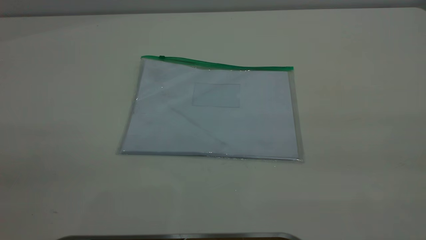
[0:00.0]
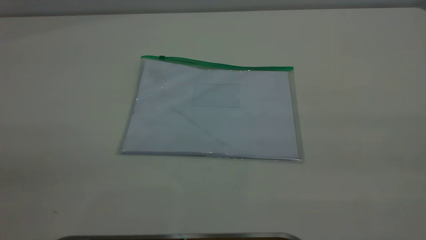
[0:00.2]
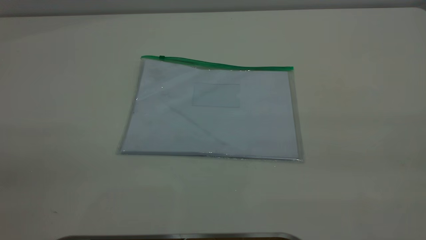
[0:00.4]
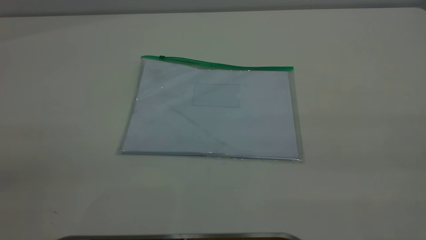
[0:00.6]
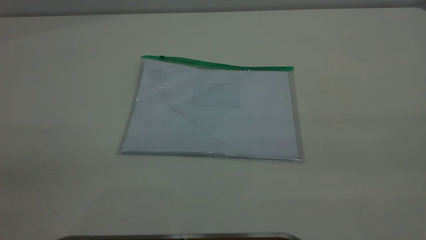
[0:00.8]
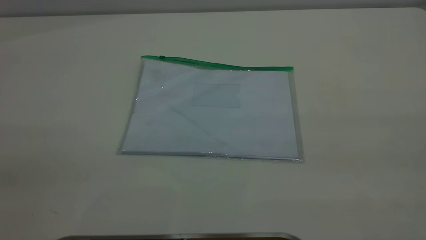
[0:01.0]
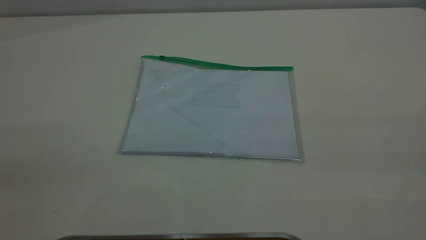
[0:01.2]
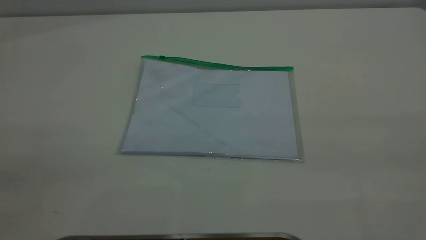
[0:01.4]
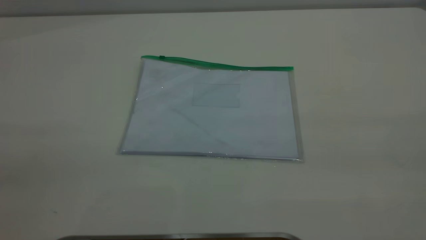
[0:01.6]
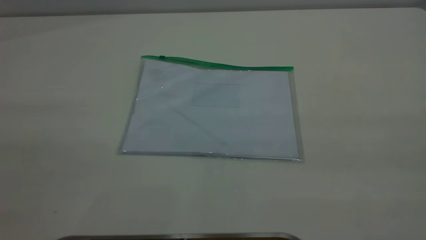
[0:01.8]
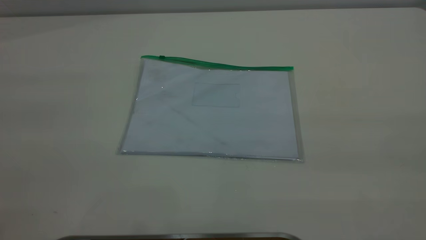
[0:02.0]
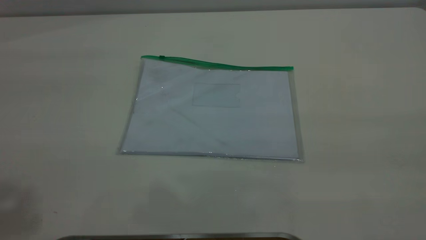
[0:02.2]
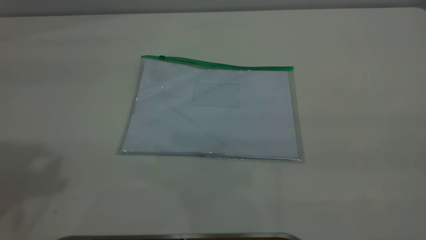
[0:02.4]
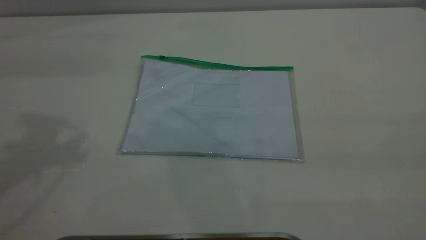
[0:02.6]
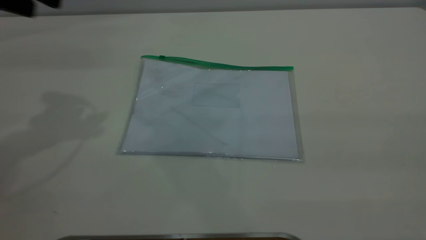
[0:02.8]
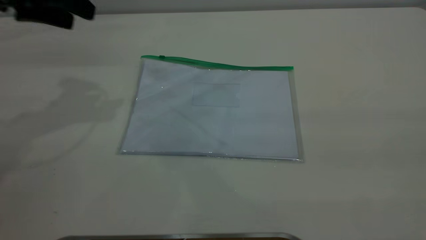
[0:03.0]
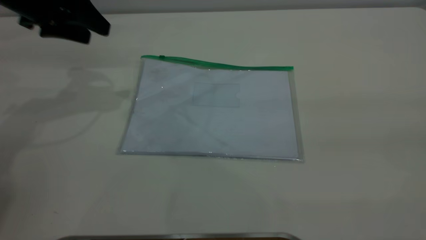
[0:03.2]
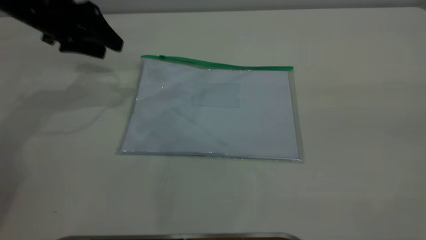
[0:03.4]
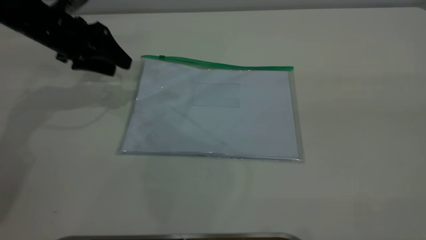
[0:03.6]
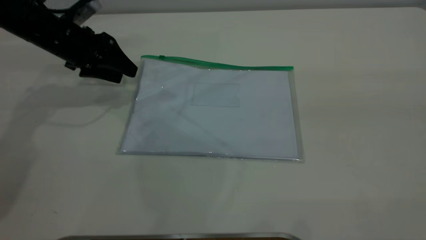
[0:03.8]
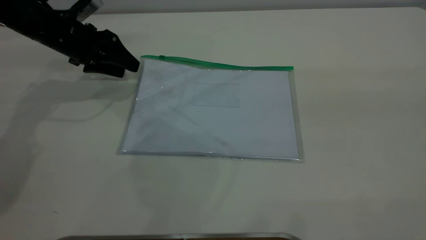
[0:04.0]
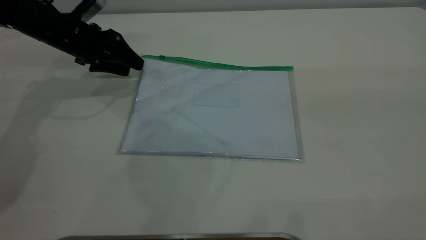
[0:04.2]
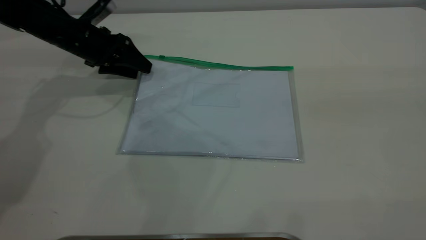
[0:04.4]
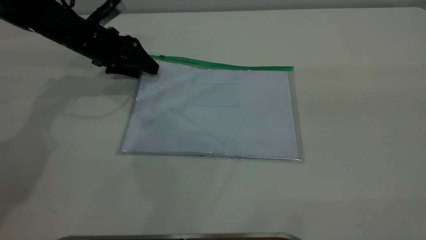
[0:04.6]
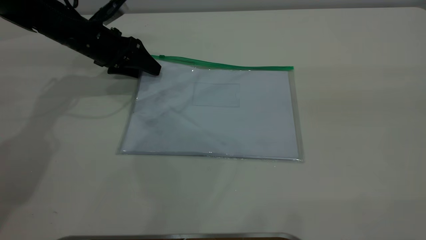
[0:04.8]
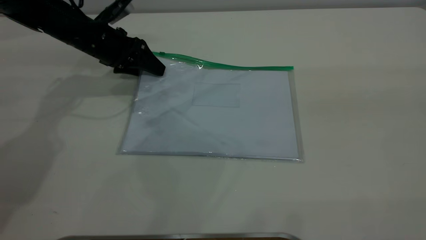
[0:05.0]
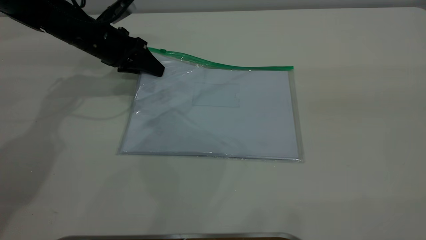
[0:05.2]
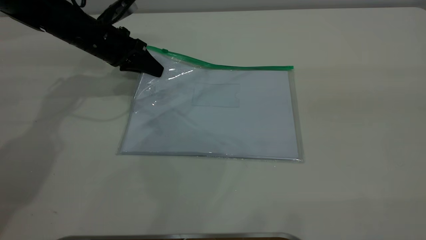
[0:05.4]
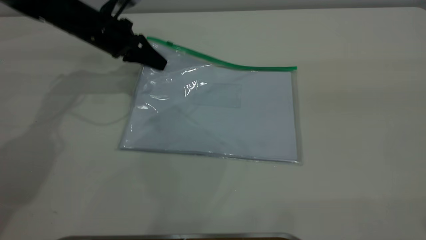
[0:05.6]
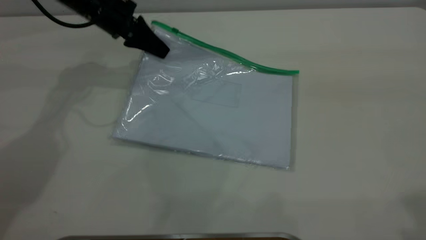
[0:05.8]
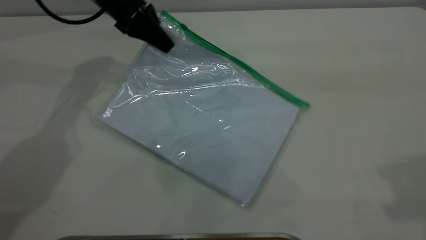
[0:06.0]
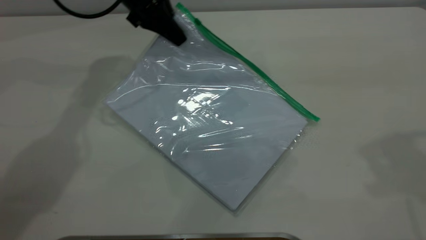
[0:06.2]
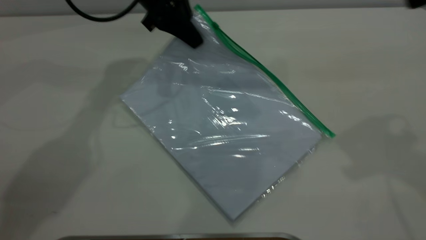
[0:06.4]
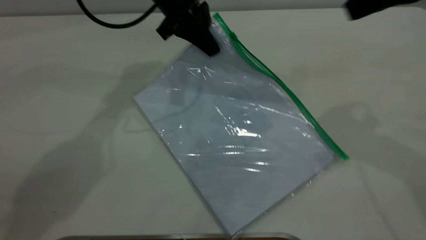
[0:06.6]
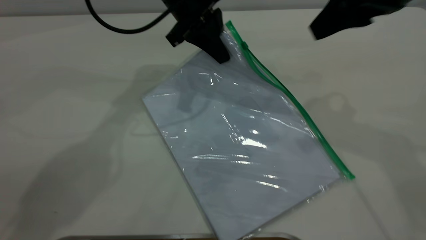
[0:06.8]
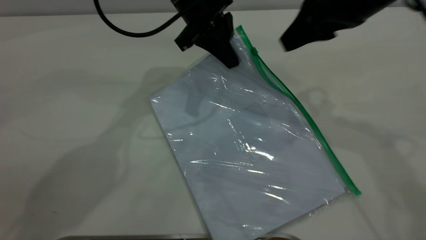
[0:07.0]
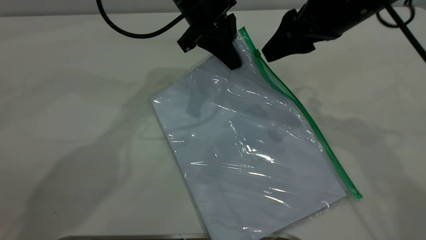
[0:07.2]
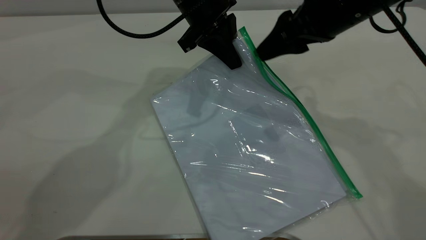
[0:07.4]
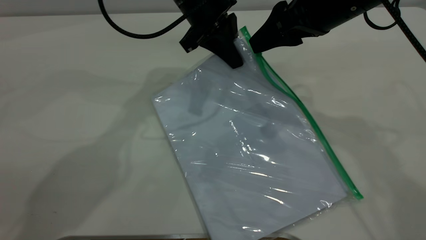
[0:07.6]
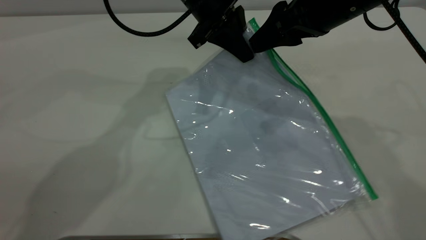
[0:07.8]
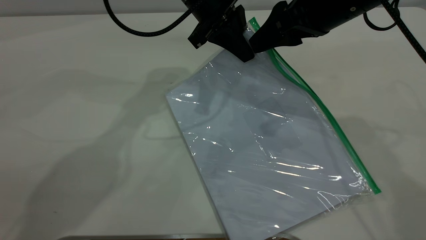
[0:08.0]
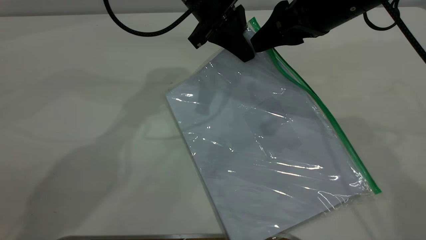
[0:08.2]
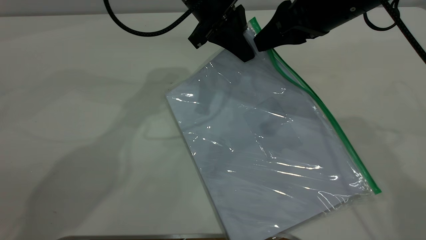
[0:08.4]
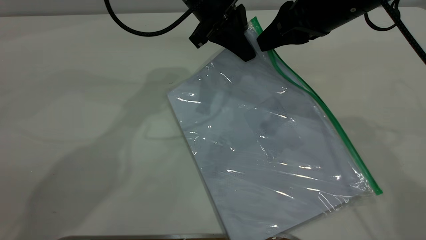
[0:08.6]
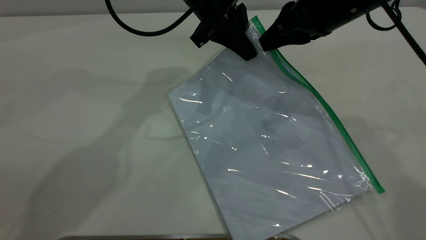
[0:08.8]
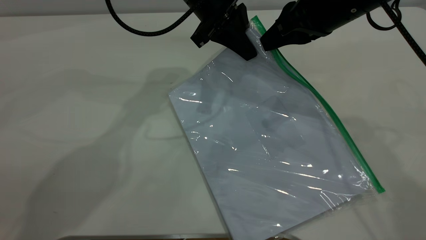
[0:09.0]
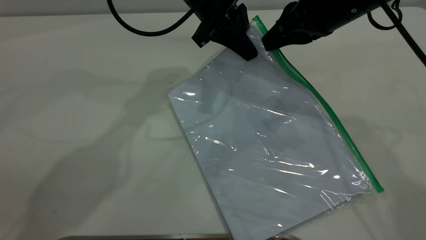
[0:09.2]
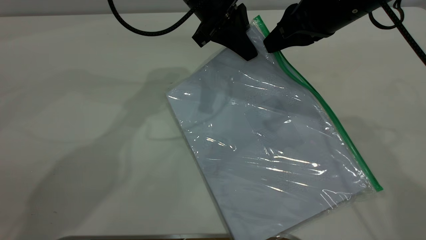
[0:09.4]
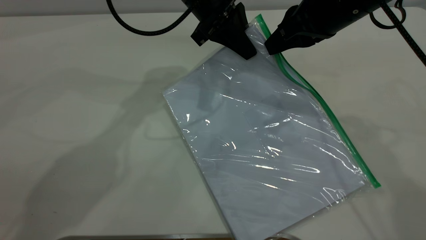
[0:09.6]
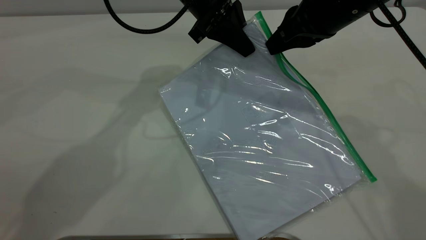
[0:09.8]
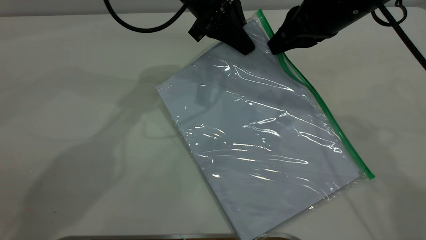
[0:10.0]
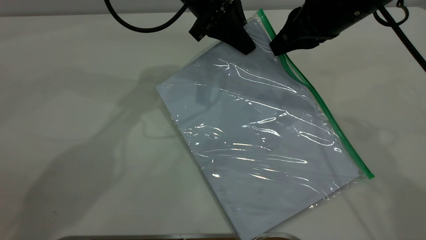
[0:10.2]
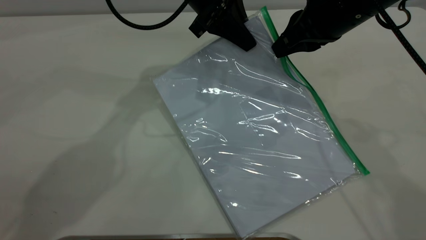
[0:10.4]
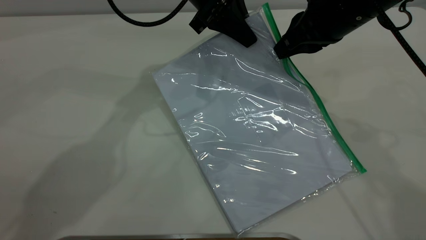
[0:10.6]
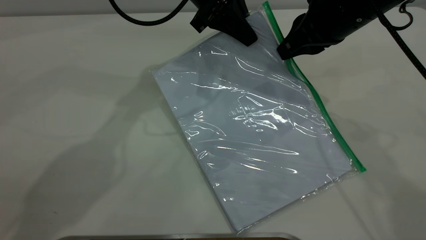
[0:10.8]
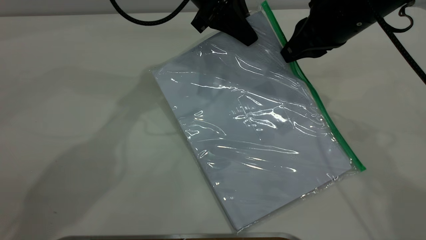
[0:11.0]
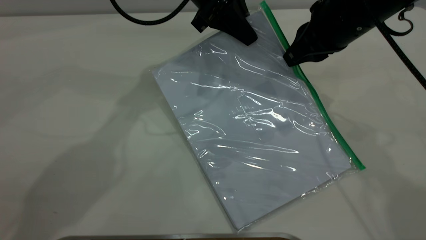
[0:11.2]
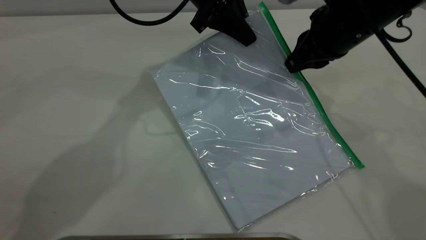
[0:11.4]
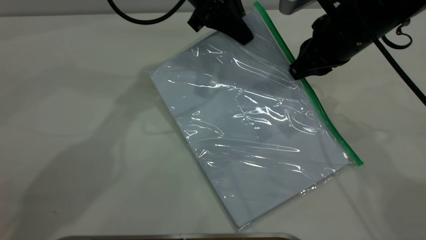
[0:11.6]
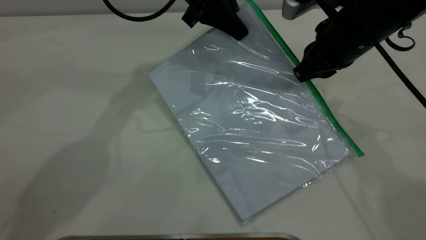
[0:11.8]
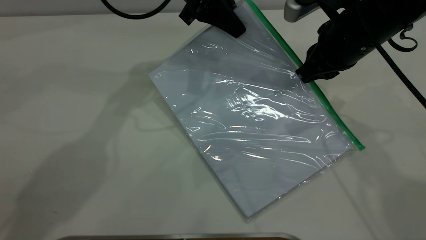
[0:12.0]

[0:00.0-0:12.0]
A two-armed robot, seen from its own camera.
Step, 0:00.0 to 0:05.8: Pick up the transparent plastic bag with the left gripper.
0:00.0 to 0:01.6: Both grippers stay about where they are.
0:01.6 to 0:03.0: The left gripper heads forward, covering roughly 40 cm.
0:03.0 to 0:04.4: The left gripper heads downward and forward, covering some 20 cm.
0:04.4 to 0:06.0: The left gripper moves upward and to the right, some 10 cm, and closes its fingers; the right gripper heads forward, covering about 10 cm.
0:06.0 to 0:07.6: The right gripper shifts roughly 25 cm downward, forward and to the left. Meanwhile the left gripper goes roughly 15 cm to the right.
0:07.6 to 0:09.0: The right gripper closes up.
0:09.0 to 0:10.4: The grippers move only a little.
0:10.4 to 0:12.0: There are only small adjustments of the grippers.

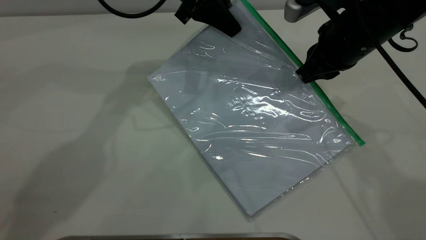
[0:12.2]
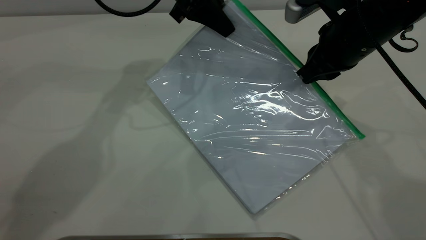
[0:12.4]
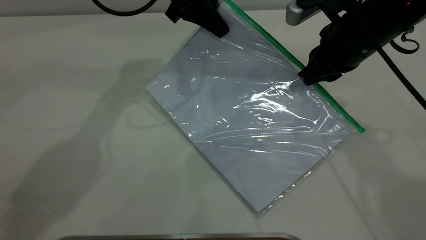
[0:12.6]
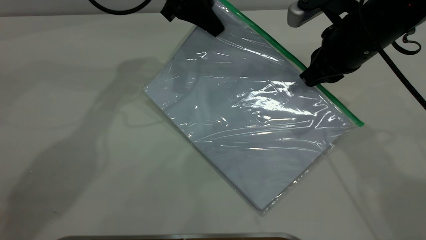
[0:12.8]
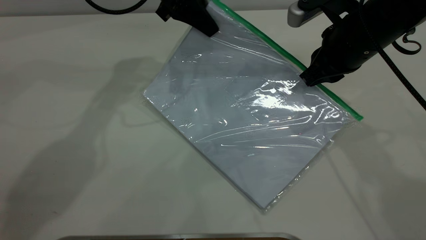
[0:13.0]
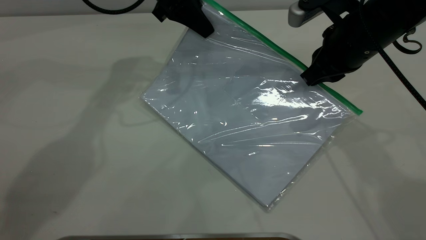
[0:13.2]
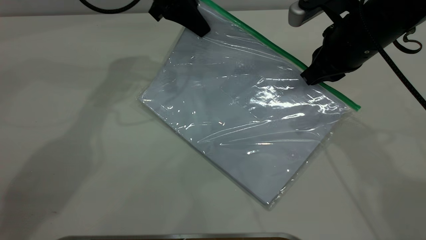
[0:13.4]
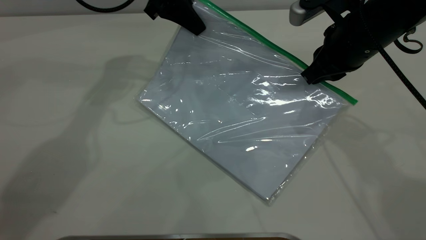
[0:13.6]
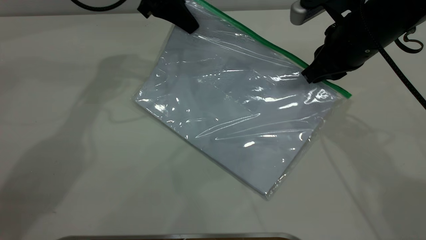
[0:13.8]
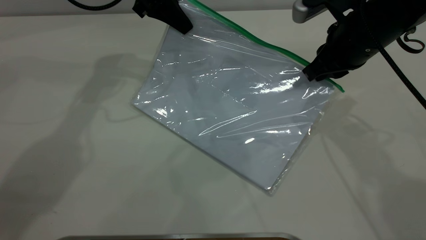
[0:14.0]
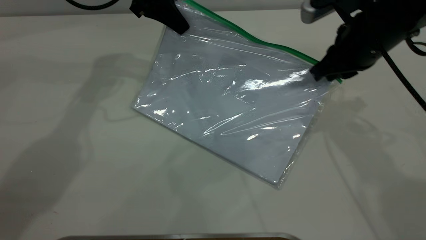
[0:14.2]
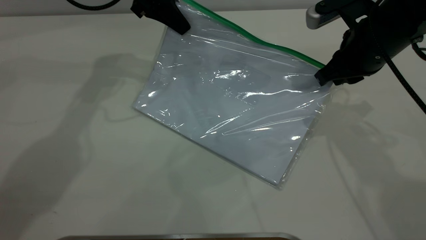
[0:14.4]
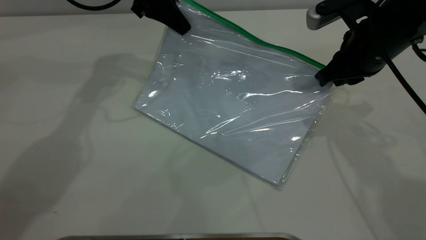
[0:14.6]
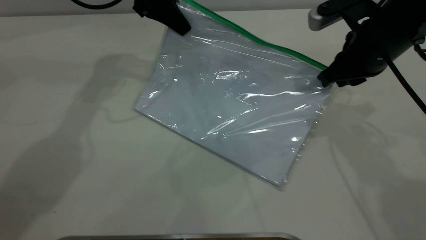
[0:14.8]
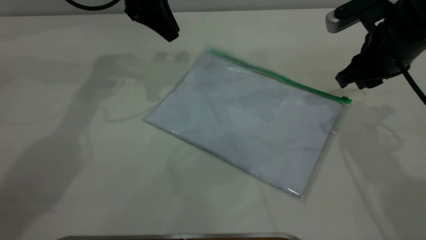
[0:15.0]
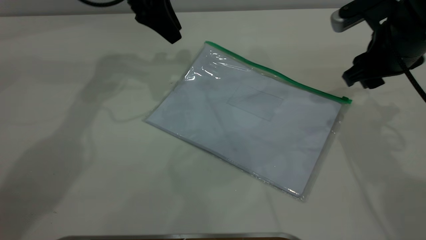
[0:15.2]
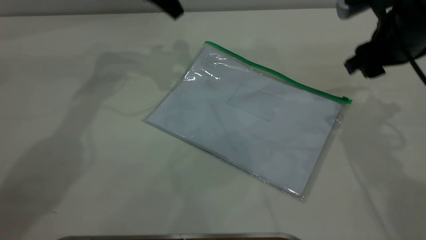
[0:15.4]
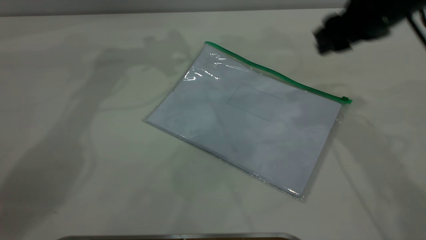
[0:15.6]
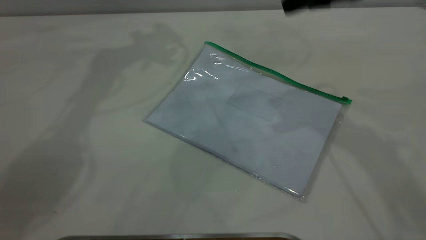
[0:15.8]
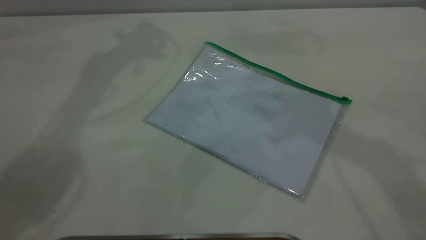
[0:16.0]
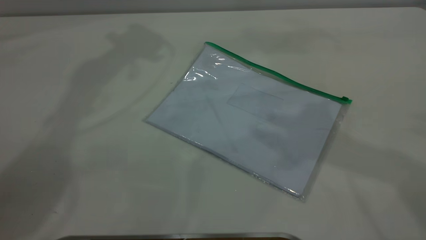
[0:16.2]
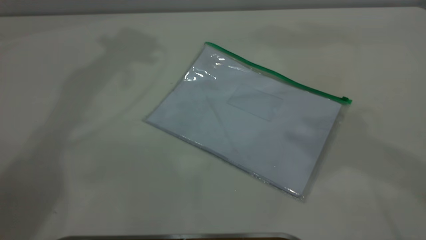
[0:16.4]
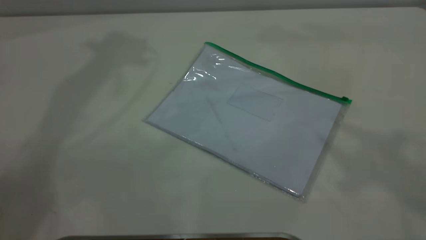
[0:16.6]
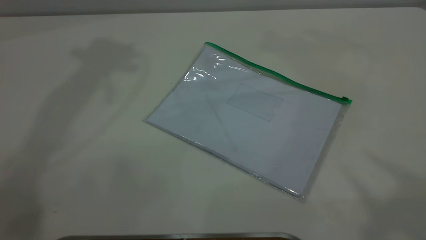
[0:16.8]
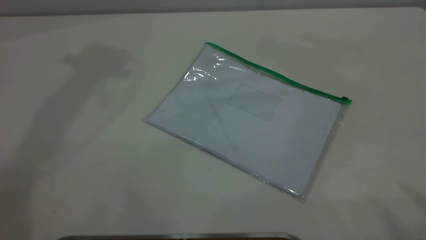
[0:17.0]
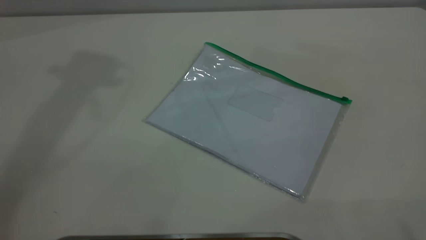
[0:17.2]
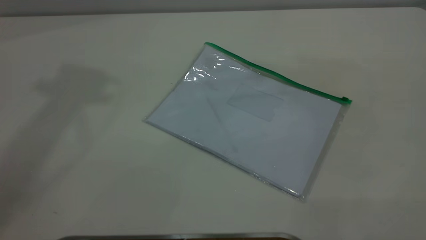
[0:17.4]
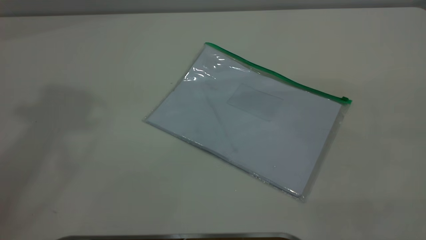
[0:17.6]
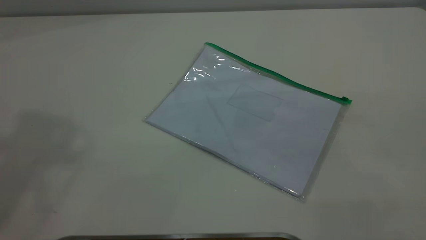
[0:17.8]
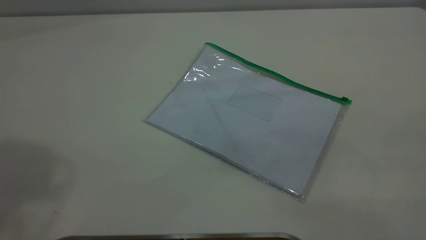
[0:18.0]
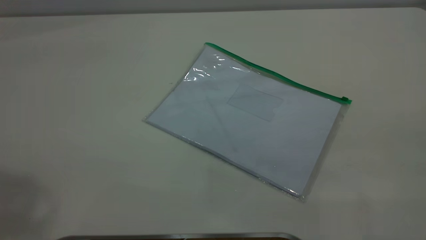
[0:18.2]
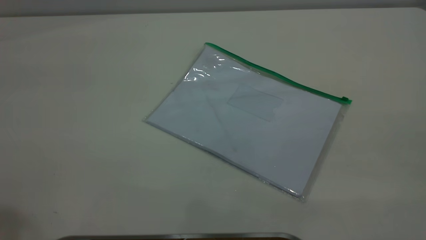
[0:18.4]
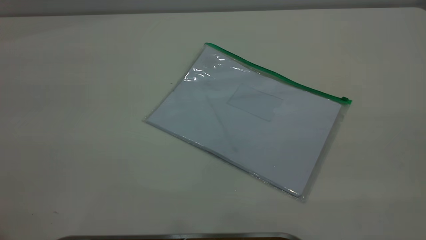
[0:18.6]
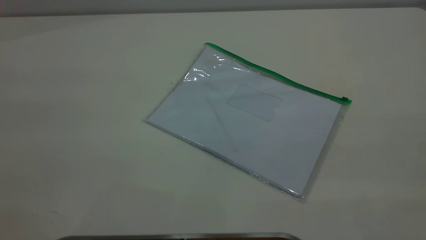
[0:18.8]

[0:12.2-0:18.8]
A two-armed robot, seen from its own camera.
Step, 0:12.2 to 0:14.2: Pulling up the zipper on the transparent plastic bag with the right gripper to close it.
Step, 0:14.4 to 0:15.0: Place the transparent plastic bag.
0:12.2 to 0:13.8: The left gripper moves to the left, roughly 5 cm.
0:13.8 to 0:15.4: The right gripper opens. Meanwhile the left gripper ends up some 5 cm from where it was, and opens up.
0:15.4 to 0:17.2: The right gripper is displaced upward and backward by about 50 cm.
